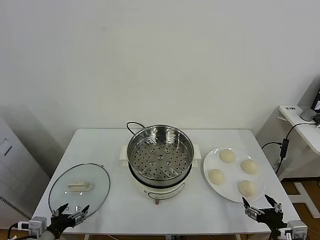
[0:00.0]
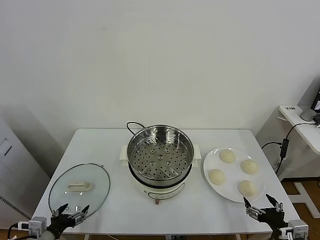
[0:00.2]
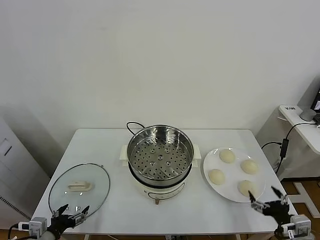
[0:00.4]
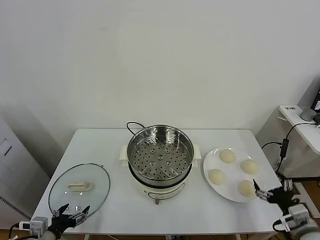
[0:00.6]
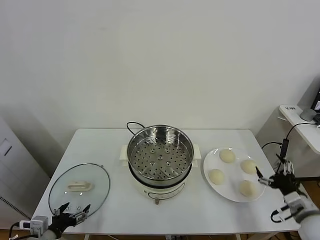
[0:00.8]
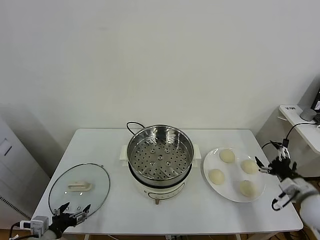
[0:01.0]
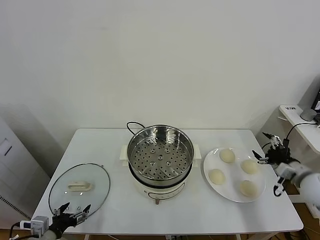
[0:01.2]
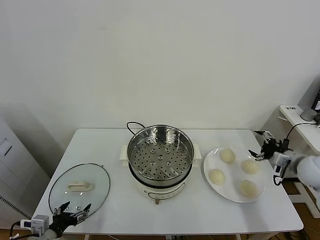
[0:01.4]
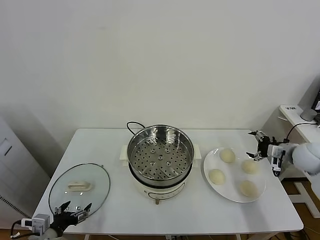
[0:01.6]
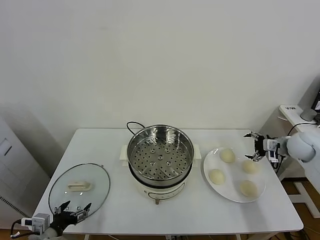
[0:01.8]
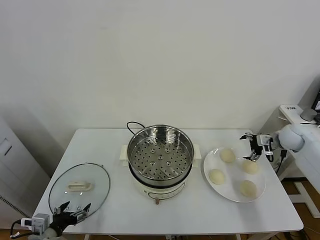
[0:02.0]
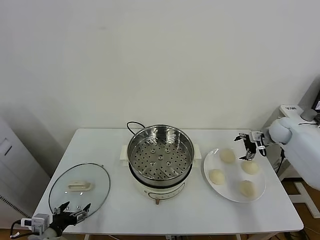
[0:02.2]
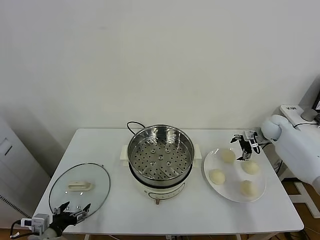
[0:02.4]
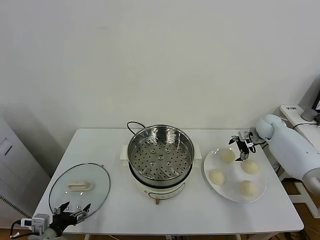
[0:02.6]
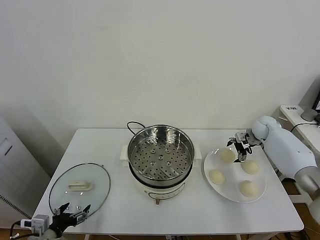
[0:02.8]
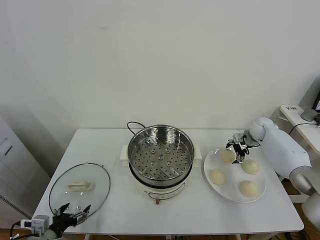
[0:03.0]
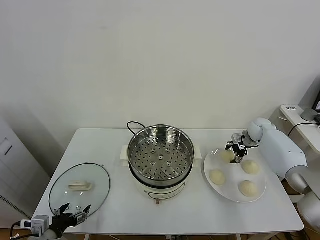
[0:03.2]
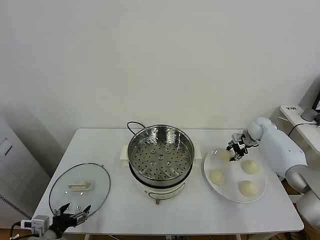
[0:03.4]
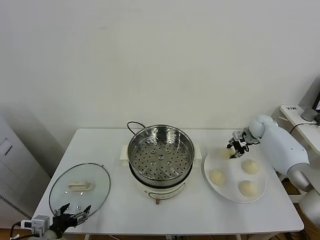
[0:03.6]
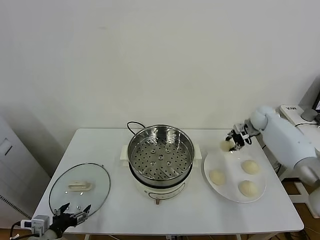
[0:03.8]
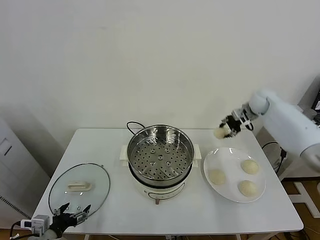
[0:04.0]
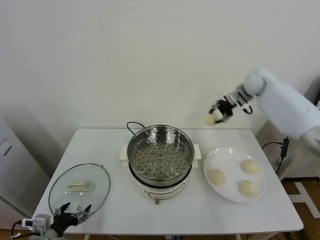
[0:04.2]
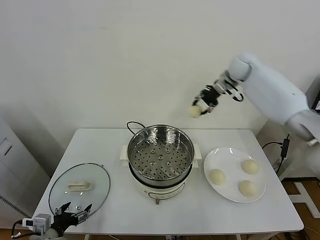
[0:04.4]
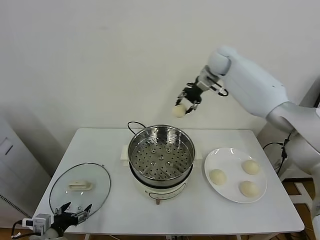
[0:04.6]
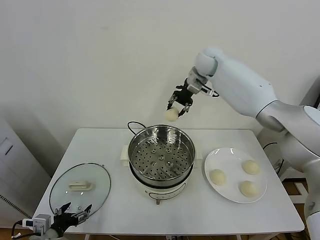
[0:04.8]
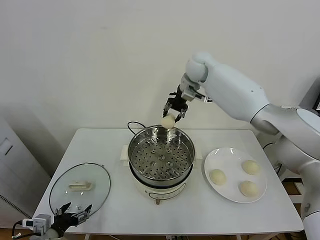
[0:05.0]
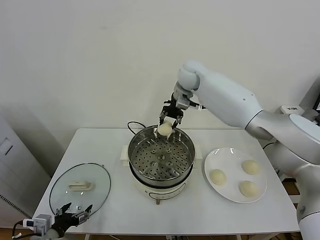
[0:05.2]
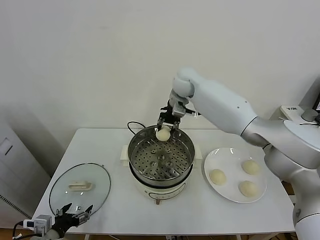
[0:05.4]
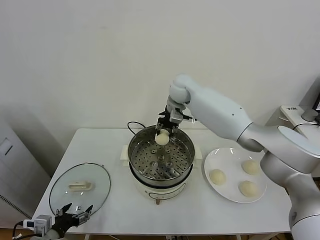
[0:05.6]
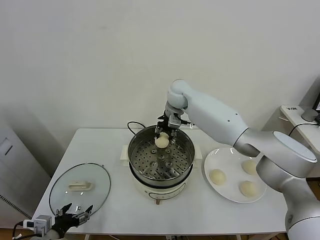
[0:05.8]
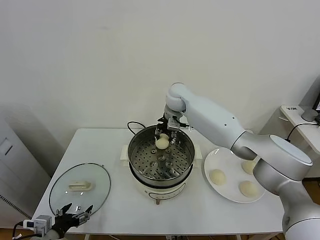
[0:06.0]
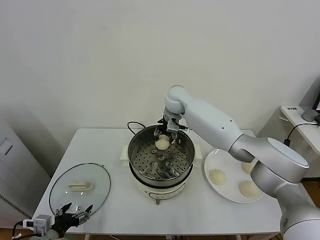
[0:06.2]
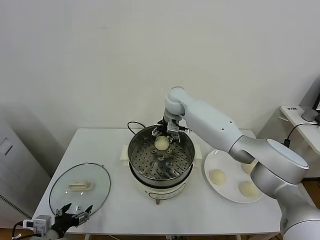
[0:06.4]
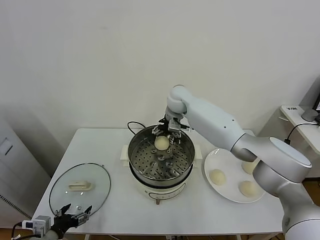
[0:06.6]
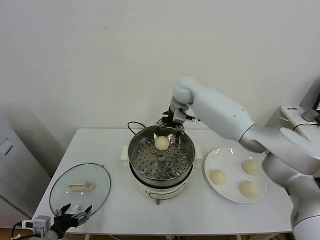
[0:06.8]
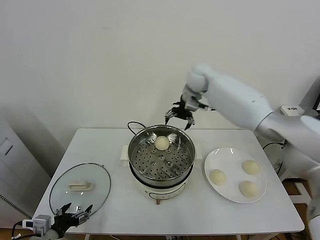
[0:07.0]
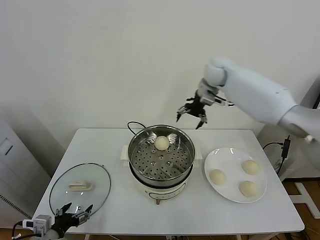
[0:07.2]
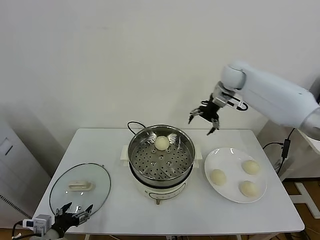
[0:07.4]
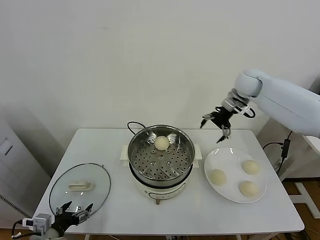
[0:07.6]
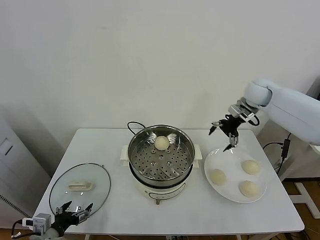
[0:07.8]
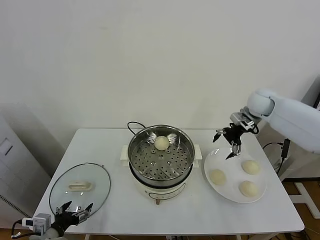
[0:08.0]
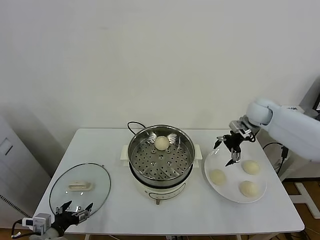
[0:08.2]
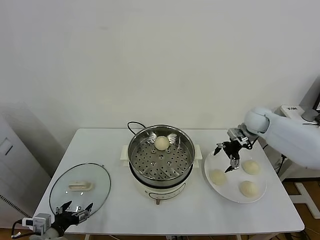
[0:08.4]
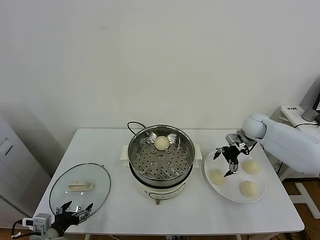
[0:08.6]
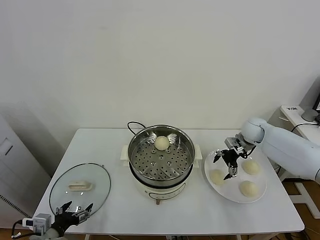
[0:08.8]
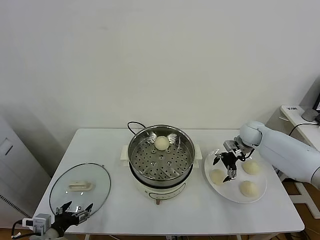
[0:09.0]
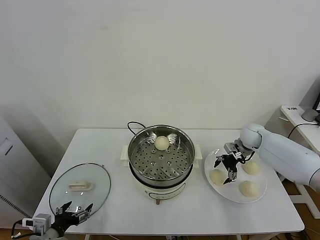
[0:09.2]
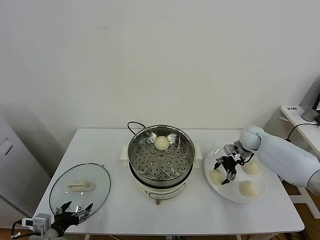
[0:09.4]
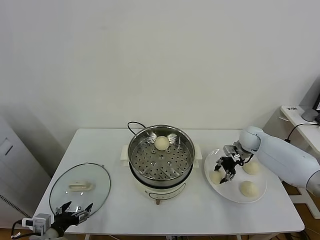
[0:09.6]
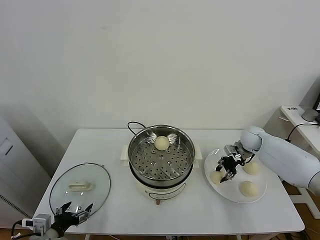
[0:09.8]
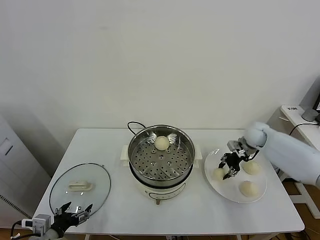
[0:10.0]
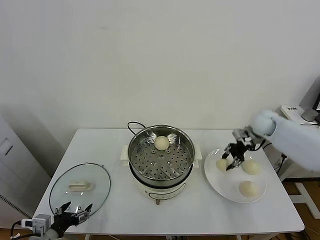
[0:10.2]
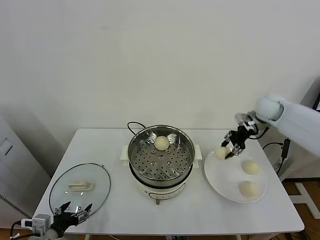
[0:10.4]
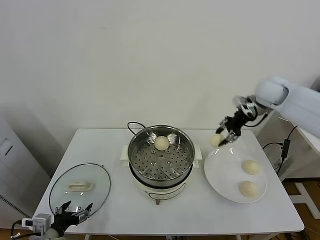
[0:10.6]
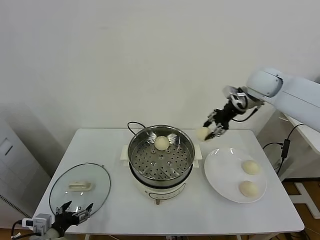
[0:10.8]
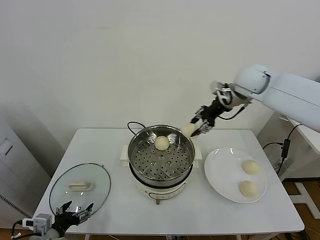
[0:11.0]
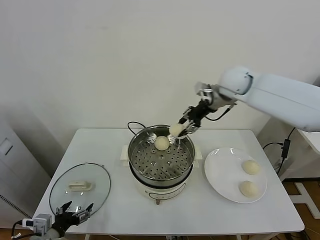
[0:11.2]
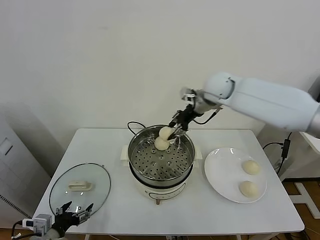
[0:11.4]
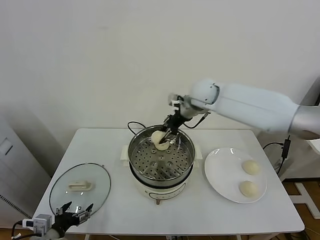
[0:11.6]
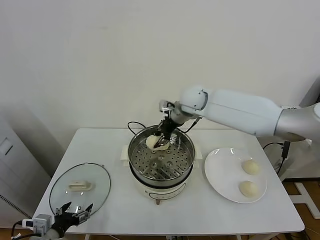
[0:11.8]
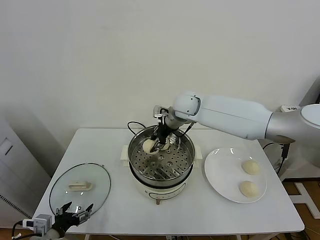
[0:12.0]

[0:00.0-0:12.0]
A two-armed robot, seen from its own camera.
Task of the whole recording: take steamed baozi put them in steamer.
Step, 0:00.0 to 0:03.2: Grasp the baozi in the plate with right gripper.
Step, 0:03.4 to 0:06.6: Place the baozi on the steamer with right gripper.
Step, 0:06.8 to 0:09.8: Grasp the baozi in the plate with right gripper.
0:01.6 to 0:03.0: The right gripper moves forward and to the left, about 15 cm.
0:03.0 to 0:04.4: The right gripper shifts roughly 35 cm upward and to the left, and closes up.
0:04.4 to 0:06.0: The right gripper travels to the left and downward by roughly 20 cm.
0:06.0 to 0:07.6: The right gripper goes approximately 25 cm to the right, and opens.
0:07.6 to 0:09.0: The right gripper heads downward, covering roughly 20 cm.
0:09.0 to 0:10.4: The right gripper heads upward, covering roughly 15 cm, and closes.
0:10.4 to 0:12.0: The right gripper travels to the left by roughly 30 cm.

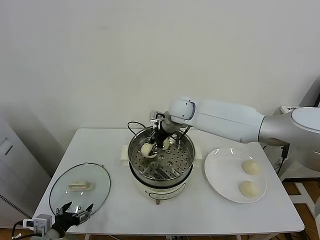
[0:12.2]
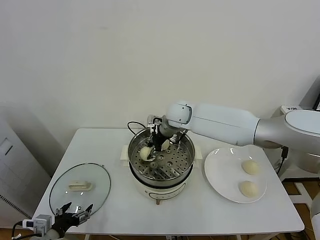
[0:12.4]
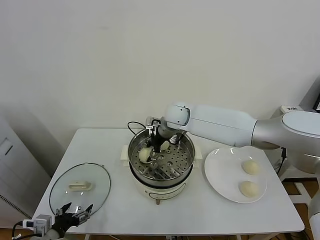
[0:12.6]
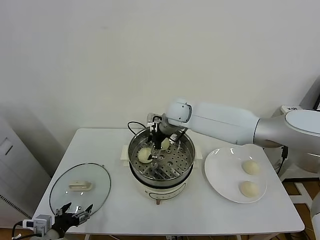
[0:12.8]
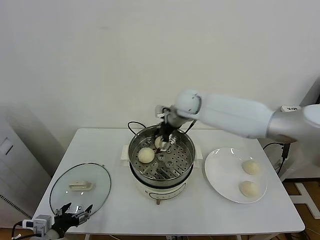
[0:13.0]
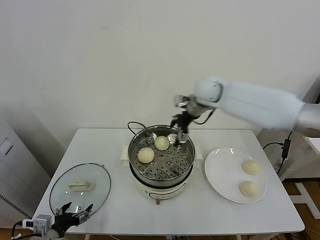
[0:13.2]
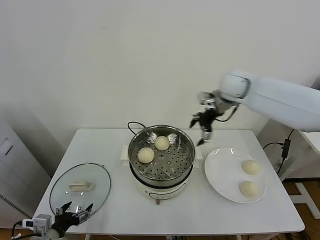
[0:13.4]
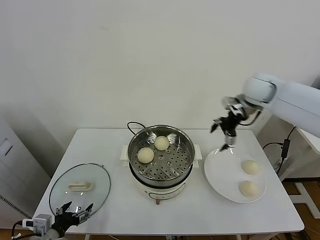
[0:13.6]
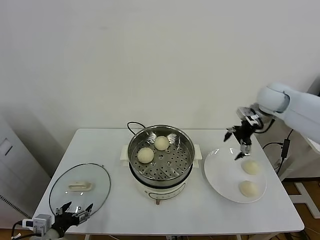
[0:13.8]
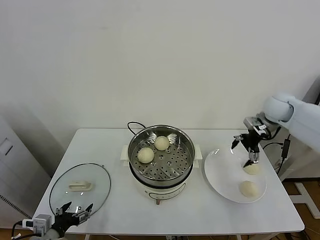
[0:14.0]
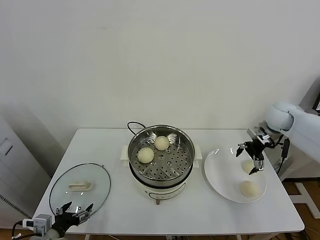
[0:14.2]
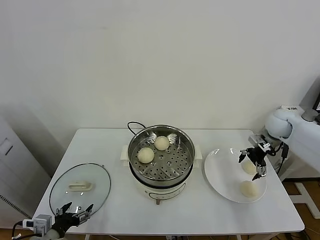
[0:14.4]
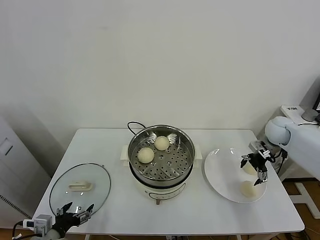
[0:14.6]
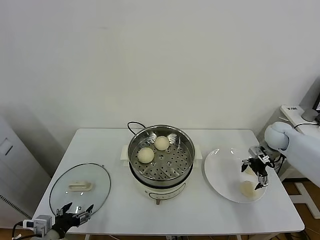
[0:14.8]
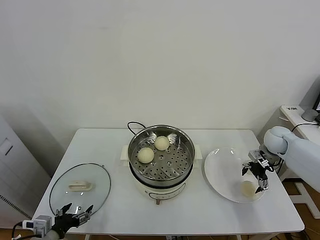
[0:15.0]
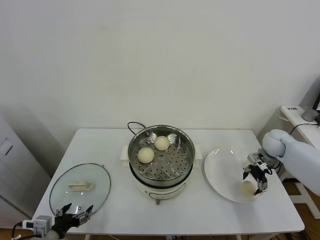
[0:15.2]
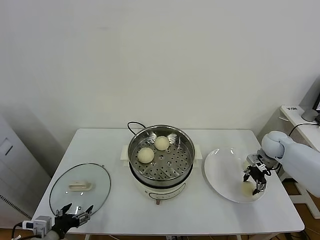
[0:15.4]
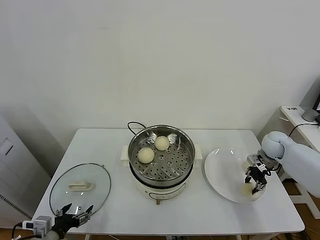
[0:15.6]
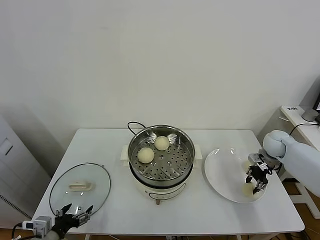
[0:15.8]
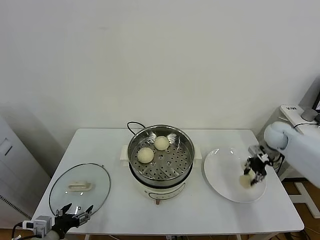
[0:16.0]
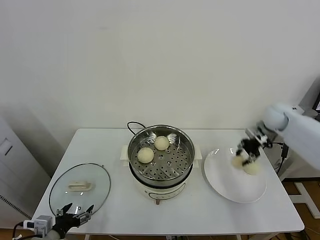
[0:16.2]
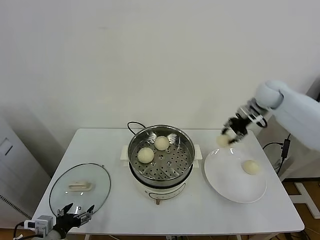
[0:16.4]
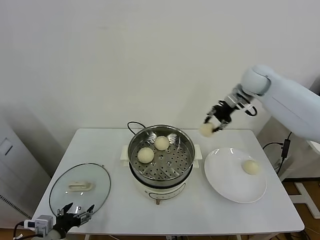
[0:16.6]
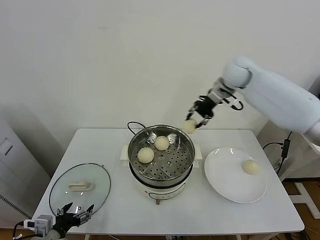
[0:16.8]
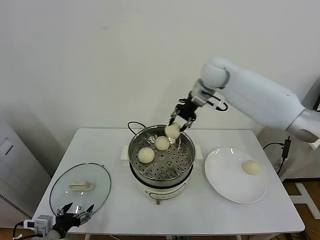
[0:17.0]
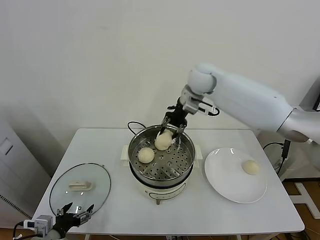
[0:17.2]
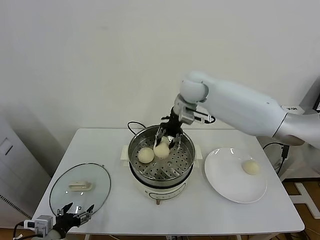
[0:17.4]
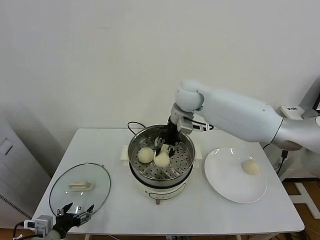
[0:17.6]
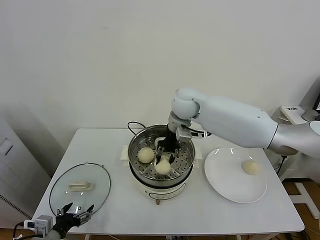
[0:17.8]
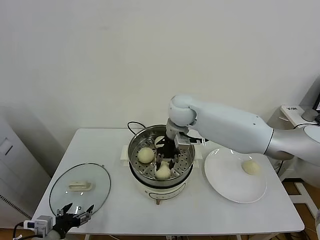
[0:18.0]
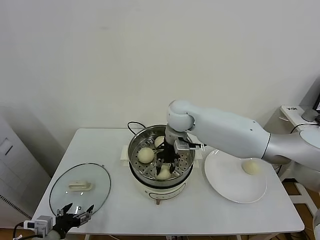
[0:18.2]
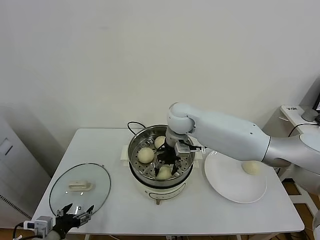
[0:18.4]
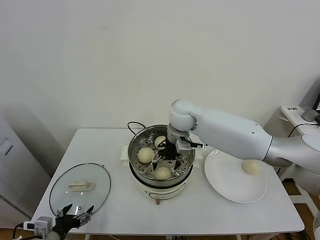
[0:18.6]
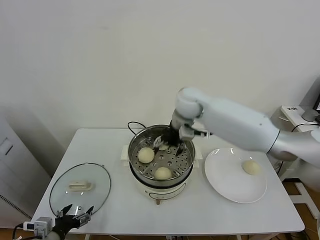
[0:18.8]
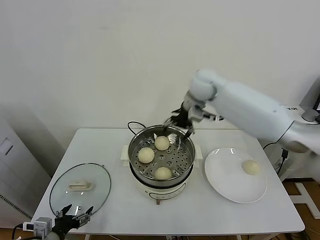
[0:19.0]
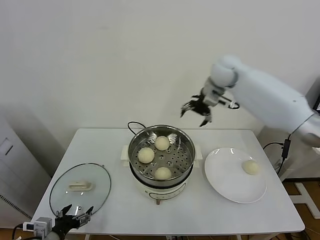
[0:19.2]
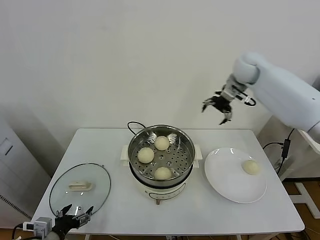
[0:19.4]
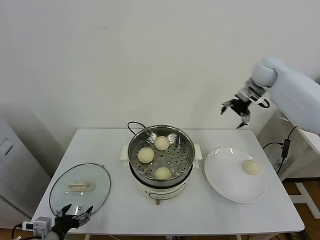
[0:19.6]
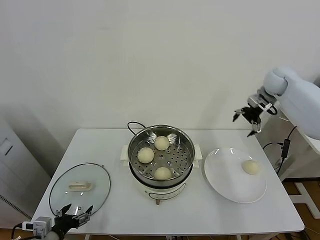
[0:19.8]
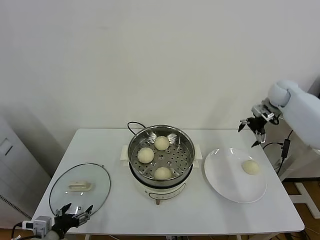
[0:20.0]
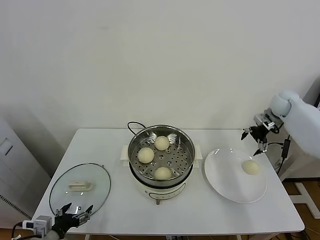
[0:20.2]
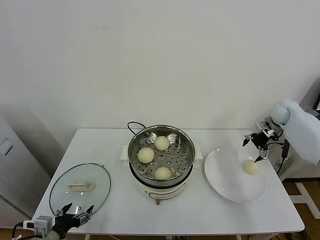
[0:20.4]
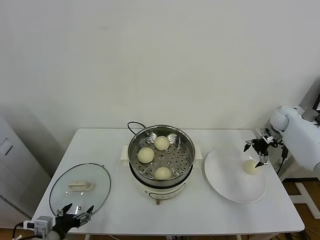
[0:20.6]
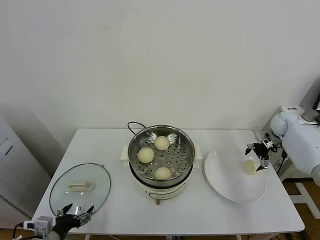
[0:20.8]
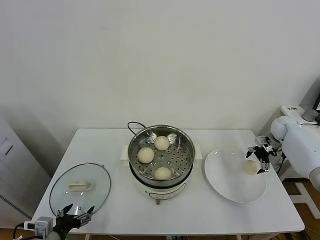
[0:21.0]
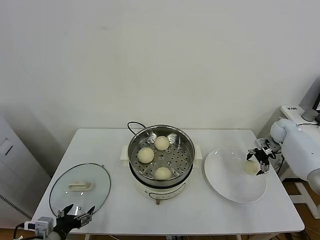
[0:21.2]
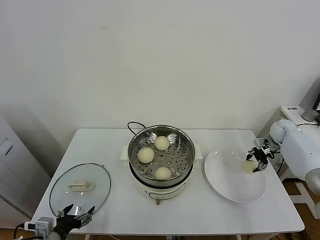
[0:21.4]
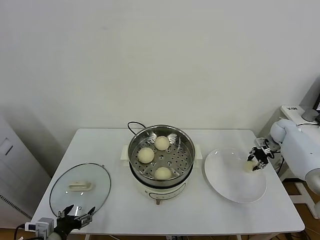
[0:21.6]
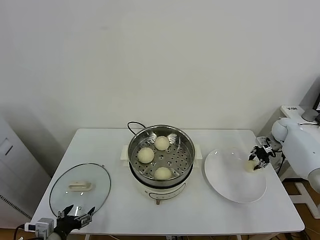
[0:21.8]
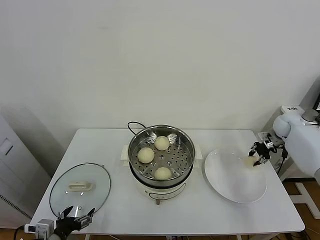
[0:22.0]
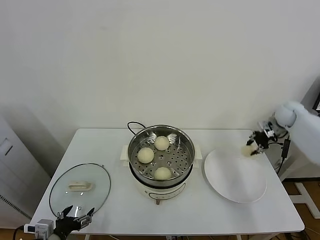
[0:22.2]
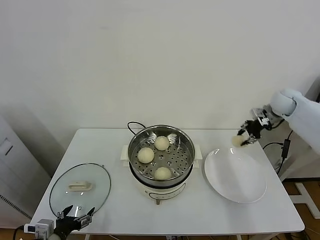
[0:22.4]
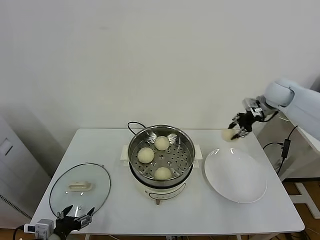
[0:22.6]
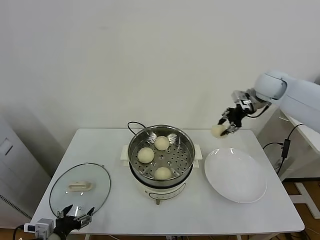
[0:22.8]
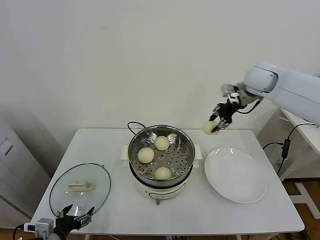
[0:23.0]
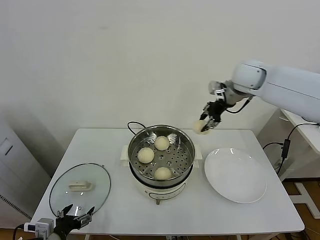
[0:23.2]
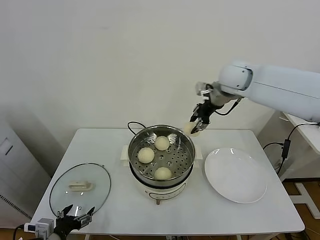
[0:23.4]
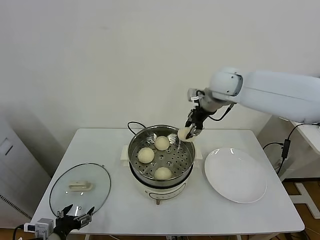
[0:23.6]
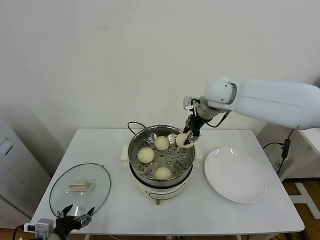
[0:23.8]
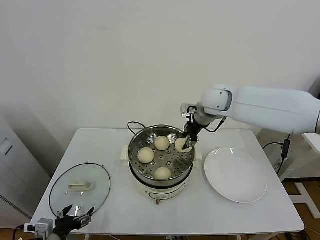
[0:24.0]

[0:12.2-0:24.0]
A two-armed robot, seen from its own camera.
Task of the whole recording: take steamed baozi put them in steamer.
Step, 0:13.2 to 0:15.6: Grasp the baozi in the plate with right gripper.
Step, 0:15.8 to 0:18.8: Place the baozi on the steamer with right gripper.
Step, 0:19.0 to 0:21.6: Grasp the baozi in the plate with right gripper.
0:12.2 to 0:13.6: The right gripper moves to the right, roughly 25 cm, and opens its fingers.
0:13.6 to 0:15.2: The right gripper is displaced downward and to the right by about 25 cm.
0:15.2 to 0:16.6: The right gripper moves upward and to the left, about 30 cm, and closes up.
0:16.6 to 0:18.2: The right gripper is displaced to the left and downward by some 25 cm.
0:18.2 to 0:19.6: The right gripper shifts some 30 cm to the right, and opens.
0:19.6 to 0:21.0: The right gripper goes some 25 cm downward and to the right.
0:21.0 to 0:22.6: The right gripper shifts roughly 20 cm upward and to the left, and closes its fingers.
0:22.6 to 0:24.0: The right gripper moves to the left, some 20 cm.
